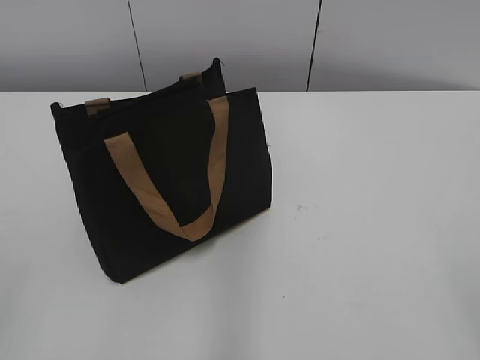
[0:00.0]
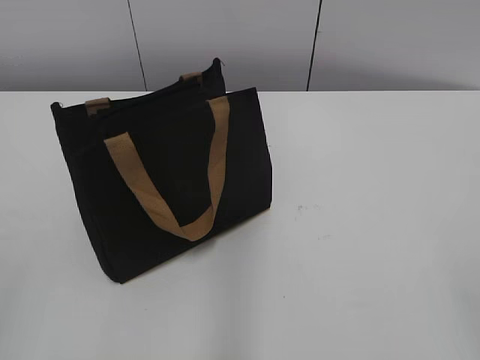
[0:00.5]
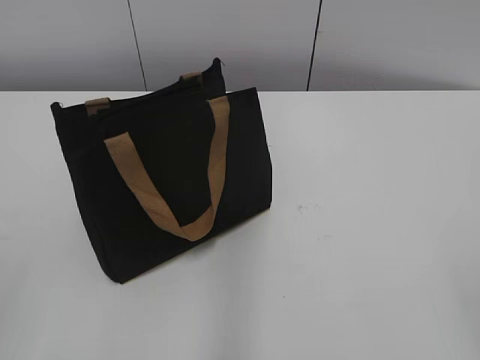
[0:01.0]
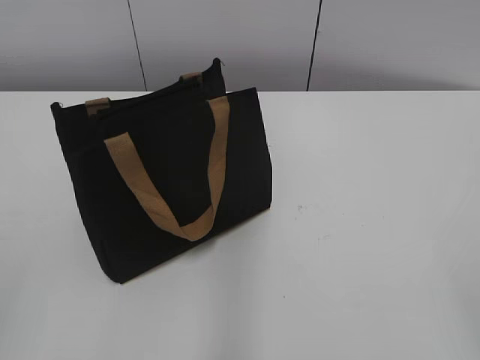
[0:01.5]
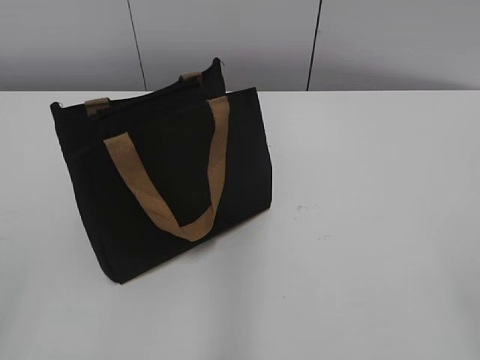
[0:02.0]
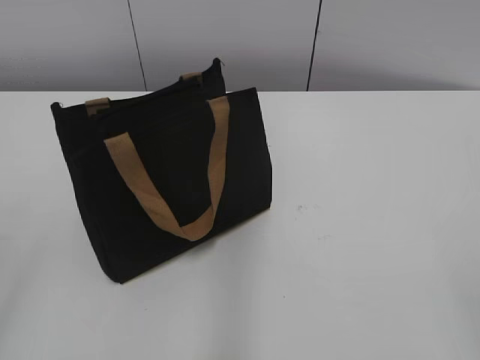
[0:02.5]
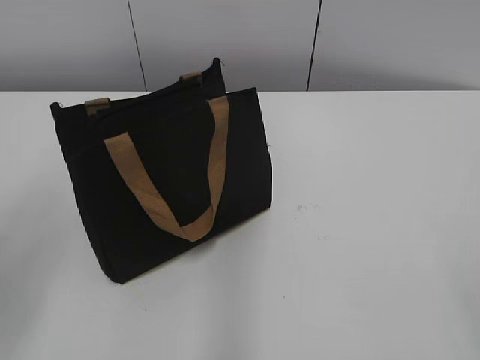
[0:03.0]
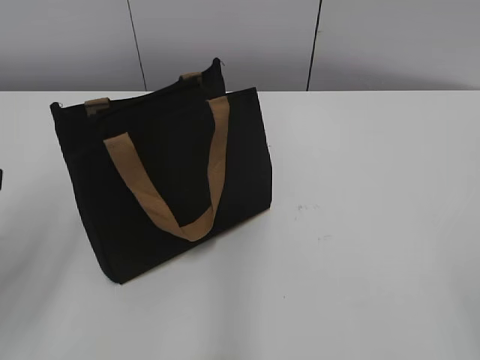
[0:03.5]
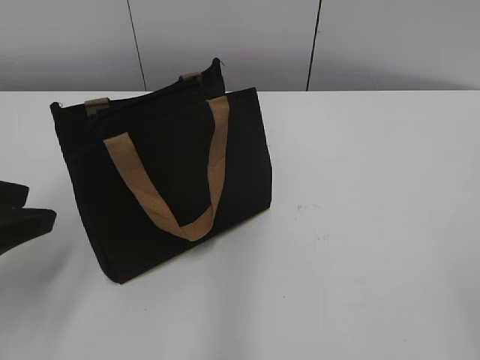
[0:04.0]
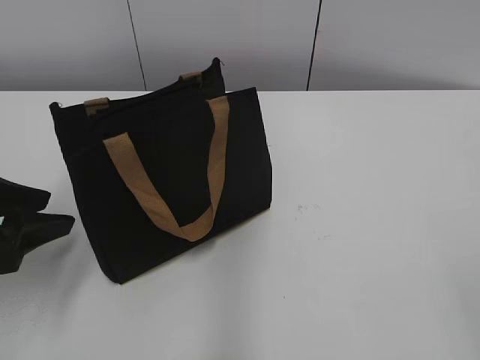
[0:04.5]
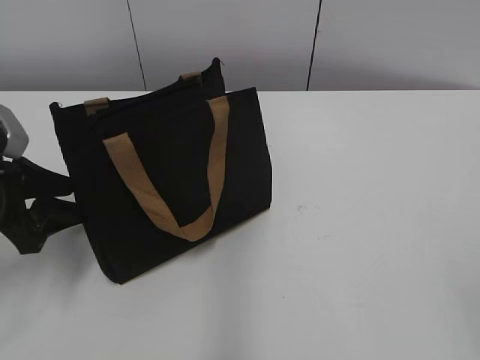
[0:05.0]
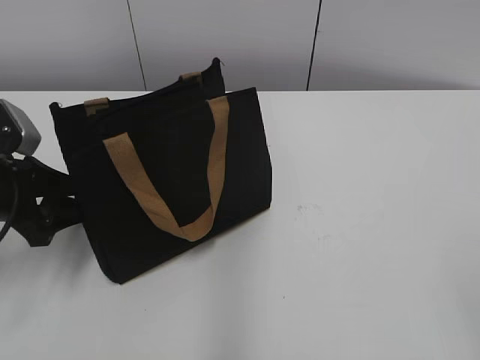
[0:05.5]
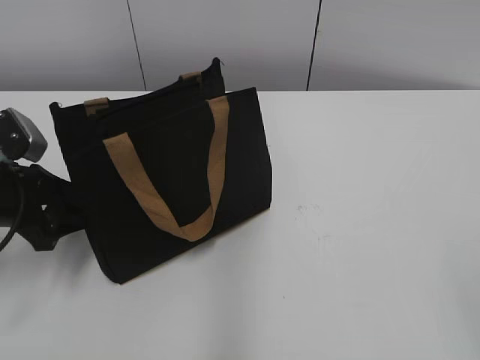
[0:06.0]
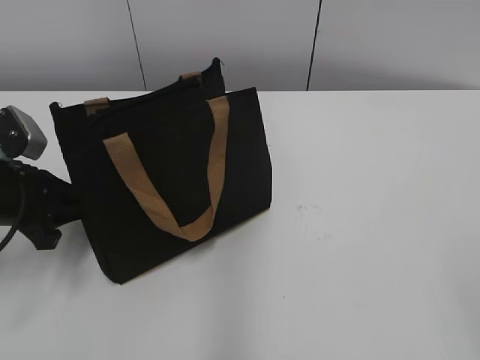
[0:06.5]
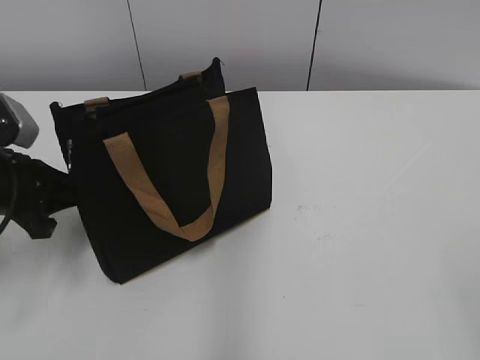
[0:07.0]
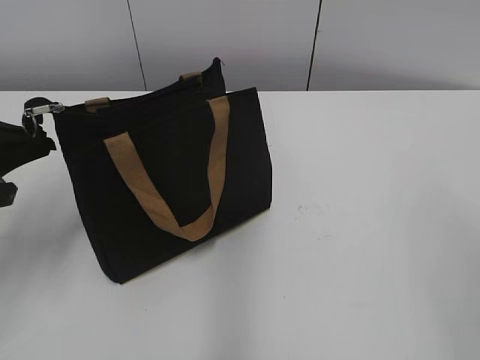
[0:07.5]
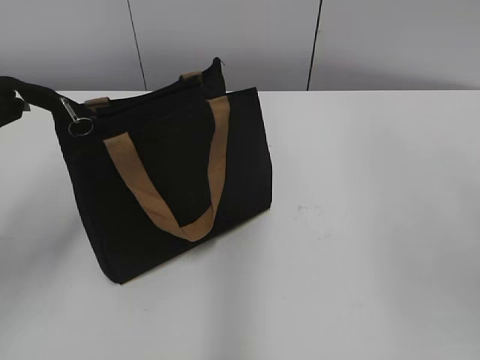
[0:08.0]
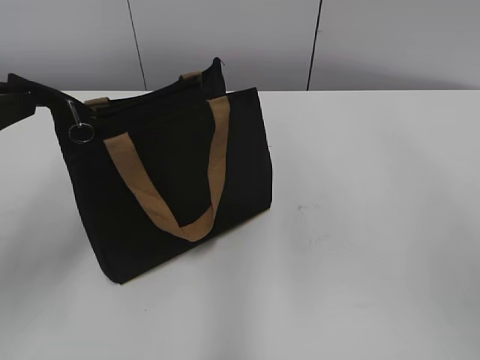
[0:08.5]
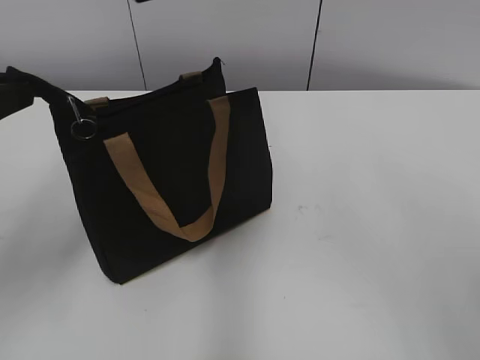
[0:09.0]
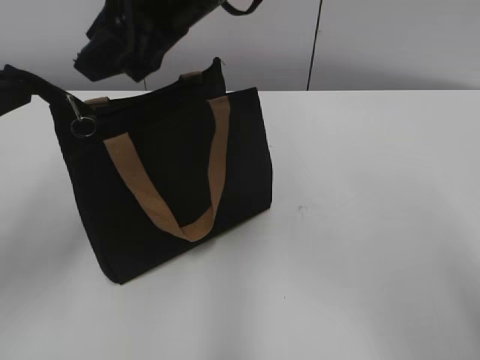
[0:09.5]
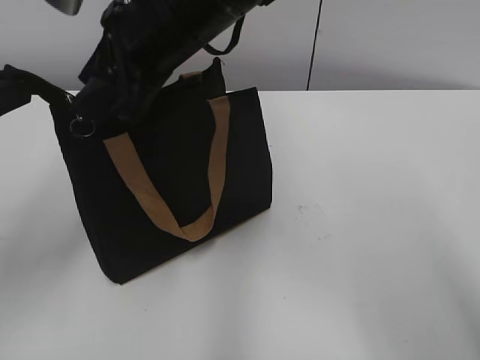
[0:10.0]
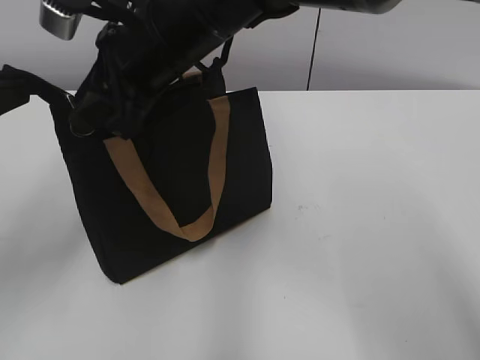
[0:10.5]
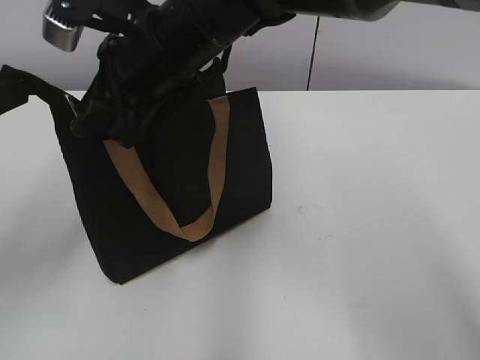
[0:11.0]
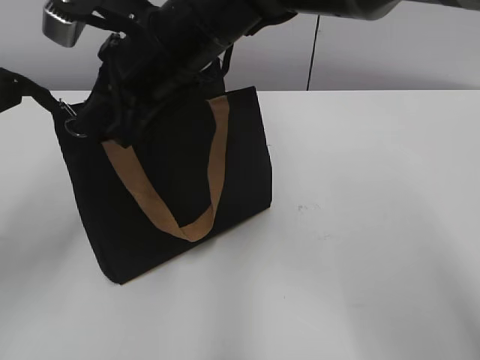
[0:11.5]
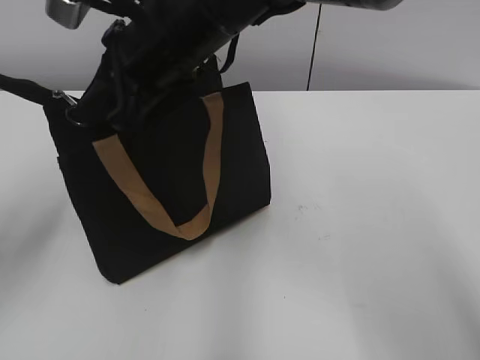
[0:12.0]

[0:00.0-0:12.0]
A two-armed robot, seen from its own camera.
0:02.0 to 0:04.0: The left gripper shifts about 20 cm forward and downward.
0:04.0 to 0:06.0: The left gripper heads forward and downward, covering approximately 15 cm.
0:06.0 to 0:08.0: The left gripper travels upward and backward by approximately 15 cm, and closes up.
0:08.0 to 0:10.0: The right gripper is displaced to the left and forward by roughly 35 cm.
0:10.0 to 0:12.0: The right gripper closes.

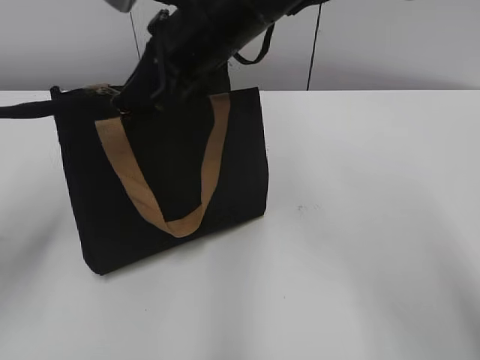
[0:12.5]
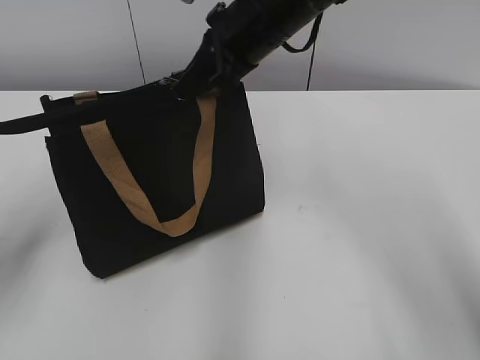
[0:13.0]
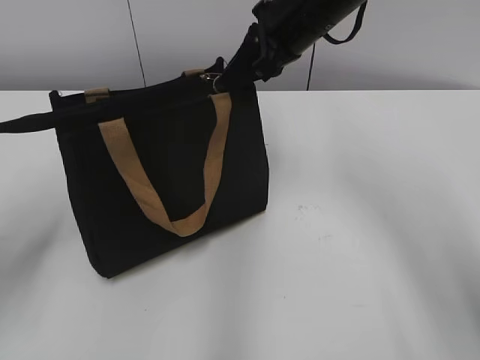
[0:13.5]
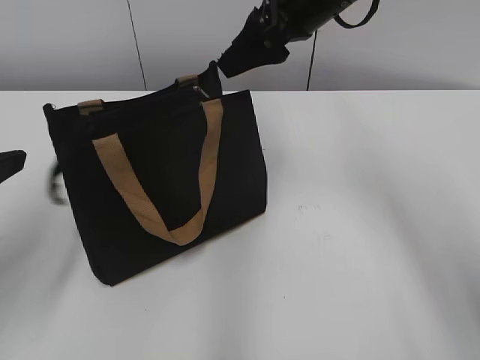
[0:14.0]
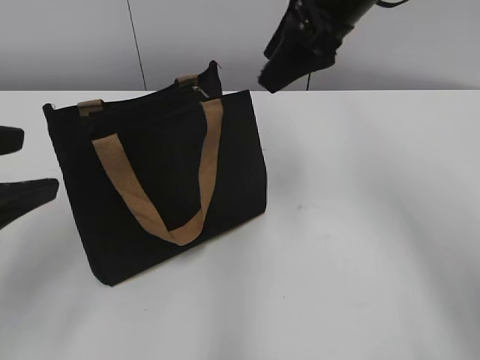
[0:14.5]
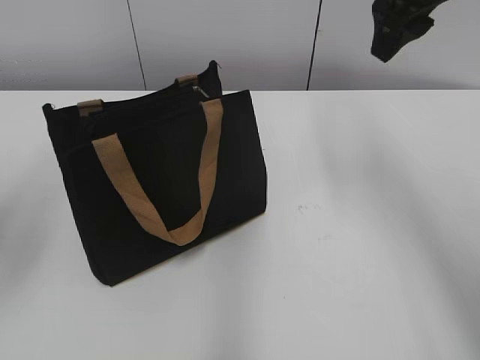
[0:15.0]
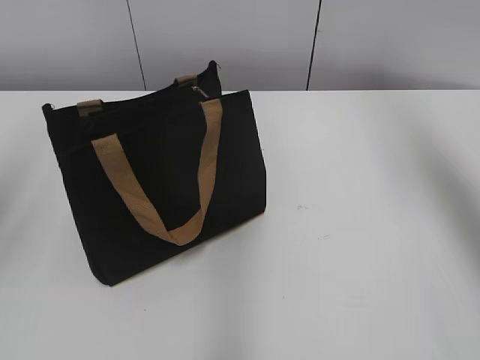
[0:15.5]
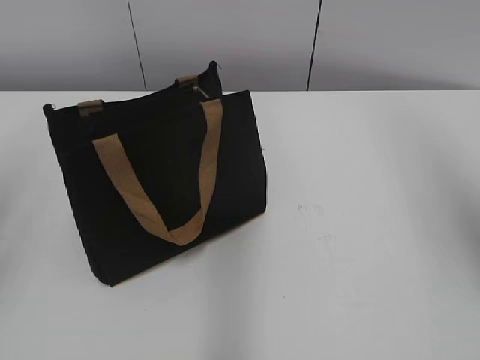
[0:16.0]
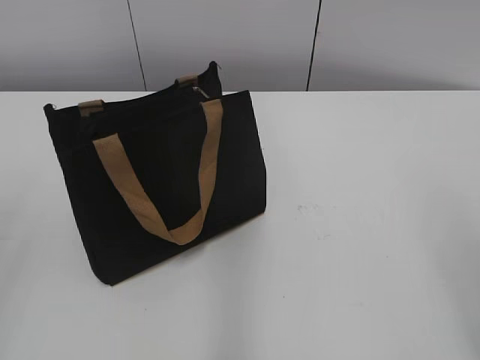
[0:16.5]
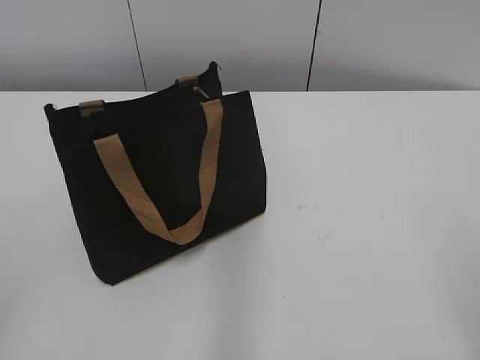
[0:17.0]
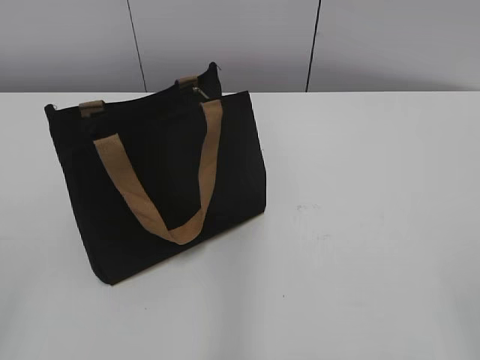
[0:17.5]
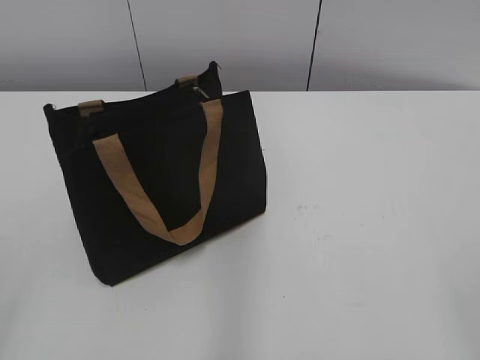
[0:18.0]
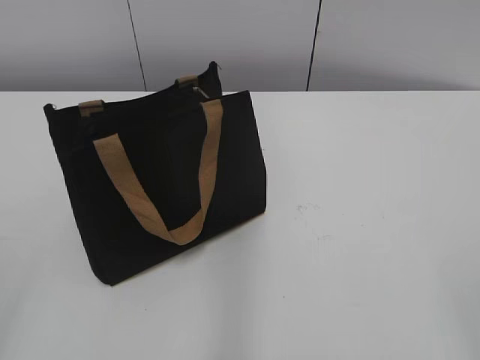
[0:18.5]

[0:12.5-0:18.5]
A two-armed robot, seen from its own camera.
0:12.5 to 0:14.5: The right gripper moves to the right, some 15 cm, and opens; the left gripper opens.
0:14.5 to 0:16.5: The right gripper is displaced backward and to the right by about 30 cm. Meanwhile the left gripper is displaced backward and upward by about 10 cm.
